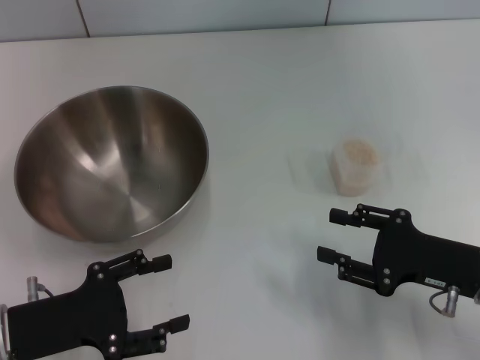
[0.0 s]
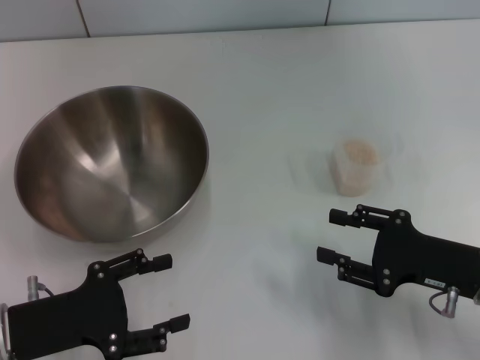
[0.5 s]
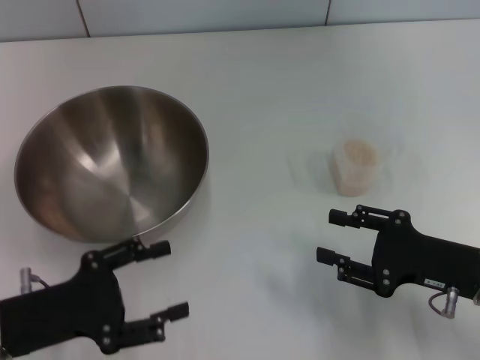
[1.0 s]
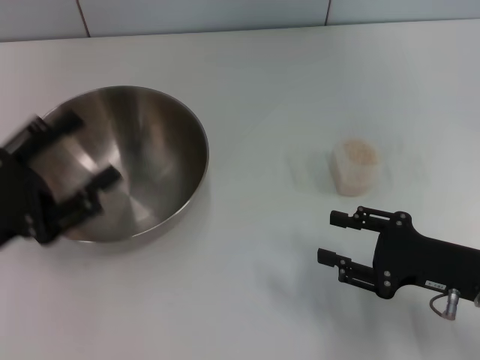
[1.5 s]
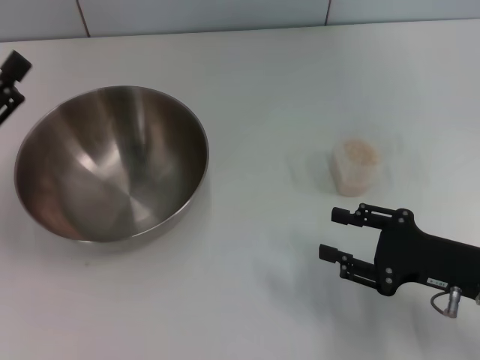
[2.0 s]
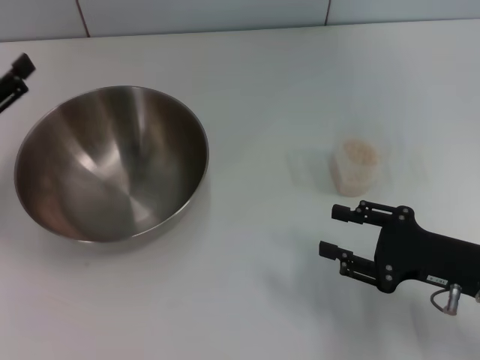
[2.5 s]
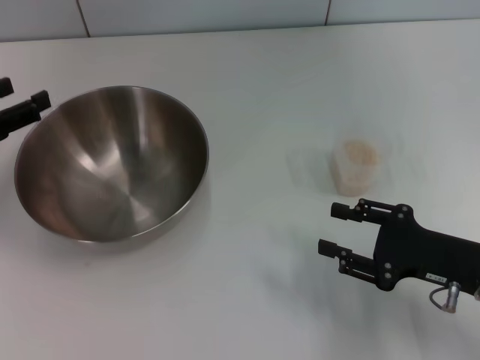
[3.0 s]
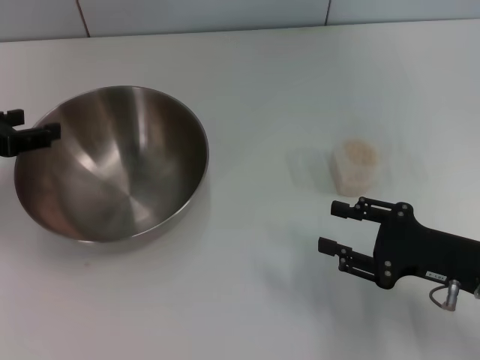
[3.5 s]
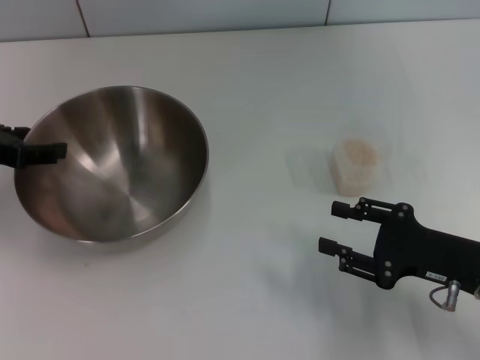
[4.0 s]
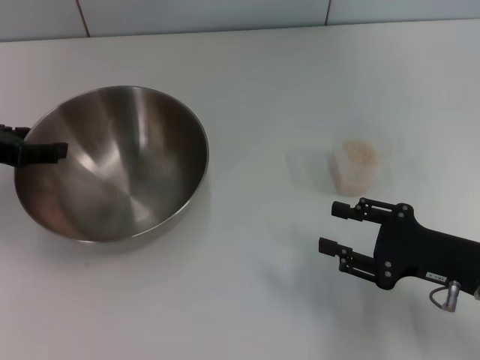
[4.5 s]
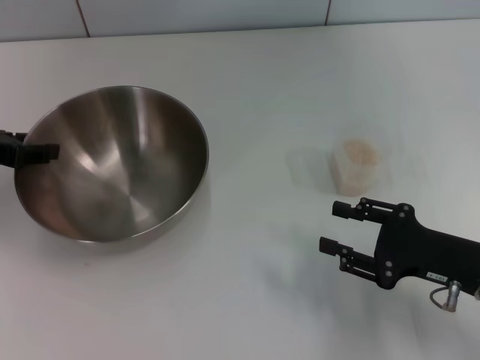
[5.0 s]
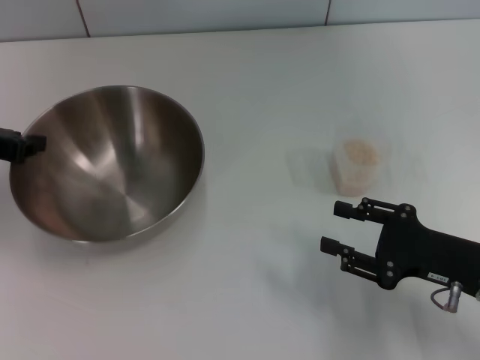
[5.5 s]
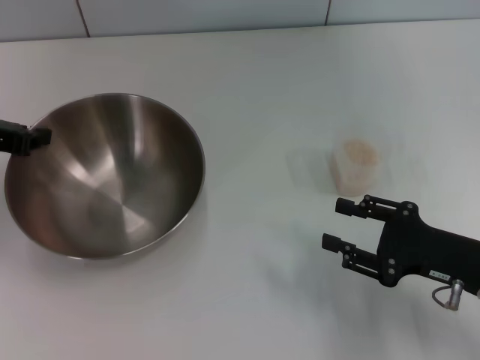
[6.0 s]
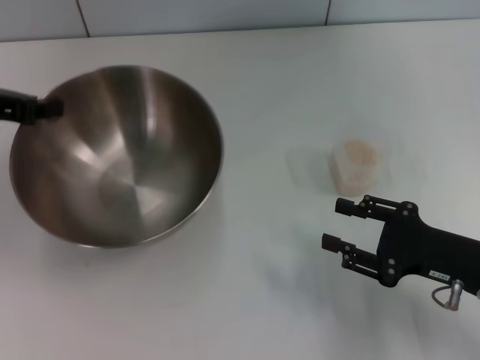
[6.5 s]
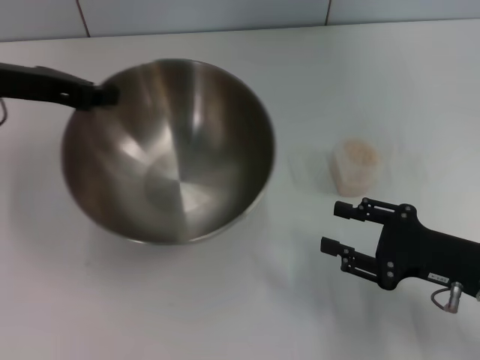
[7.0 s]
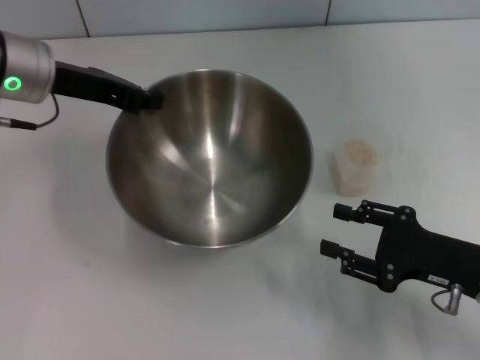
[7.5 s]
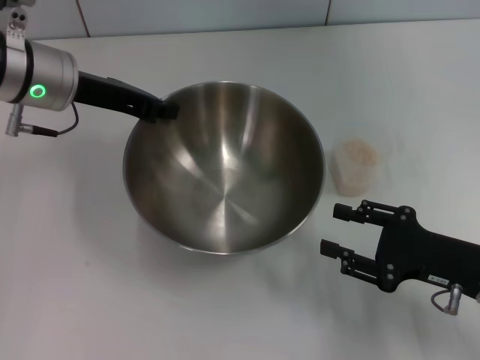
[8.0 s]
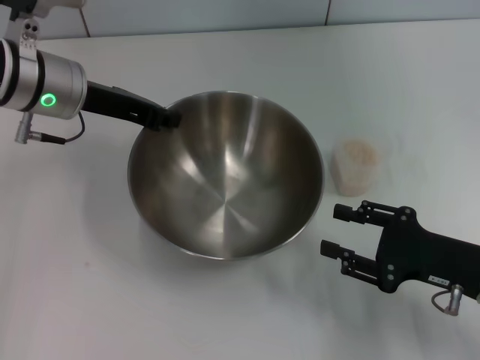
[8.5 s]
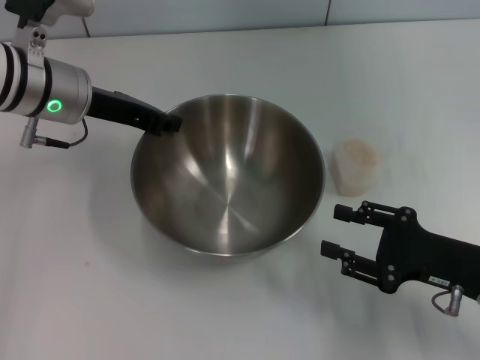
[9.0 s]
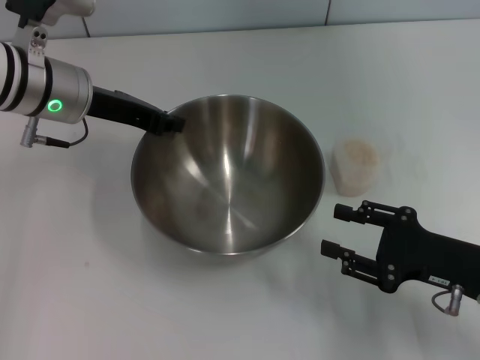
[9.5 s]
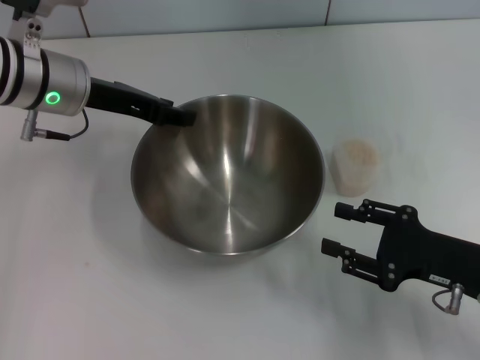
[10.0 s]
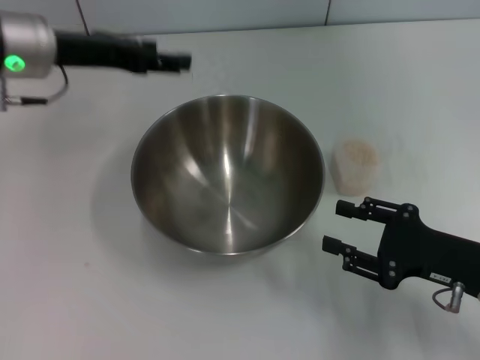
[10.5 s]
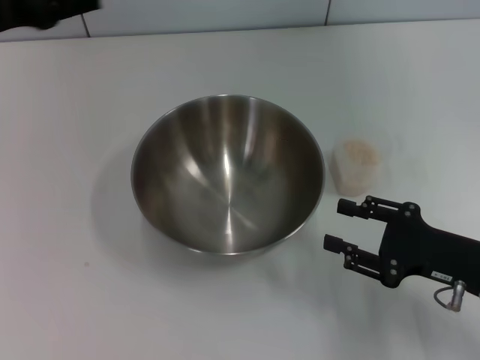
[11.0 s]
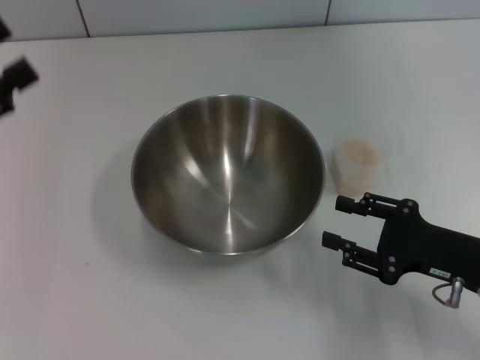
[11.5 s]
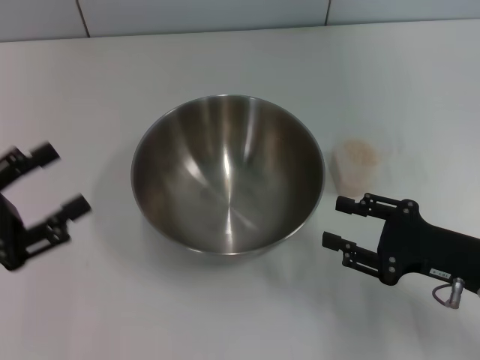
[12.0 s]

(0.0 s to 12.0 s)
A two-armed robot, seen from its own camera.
Task of the whole recording: Place the bowl in the middle of the table with one hand and pour the rice from the grain cup into it with the other hand.
Step, 0.0 s - 6.5 s: Pick up the bowl with the left gripper.
Step, 7.0 s - 10.5 s: Place the bowl in the center of view with the left gripper.
0.0 s - 2.0 s: The left gripper is displaced upward by about 5 cm.
2.0 s - 4.0 s: The left gripper moves forward, roughly 10 cm.
4.0 s - 6.0 s: The left gripper closes its fingers.
6.0 s - 8.0 s: The left gripper is displaced to the right and forward by approximately 15 cm.
8.0 s - 10.0 s: The left gripper opens up.
10.0 s - 12.0 s: The left gripper heads backward and to the left, covering roughly 25 cm, and opens up.

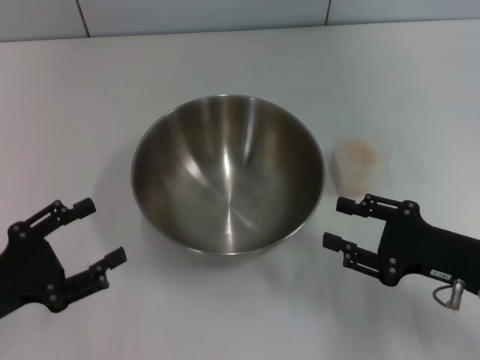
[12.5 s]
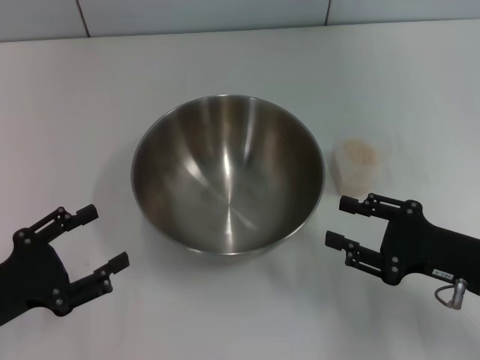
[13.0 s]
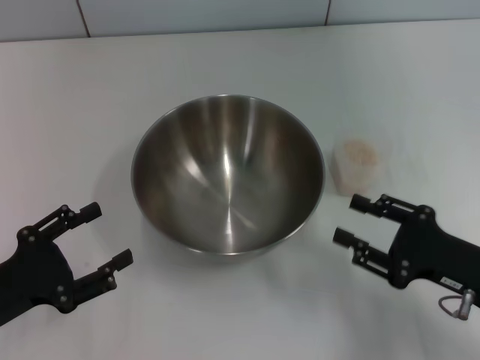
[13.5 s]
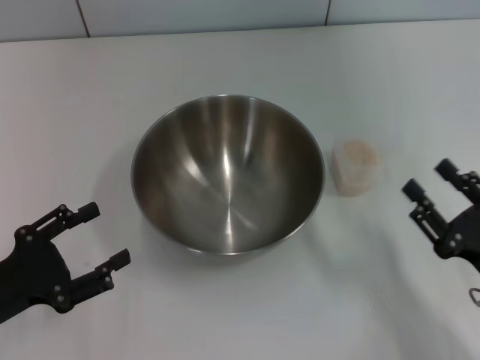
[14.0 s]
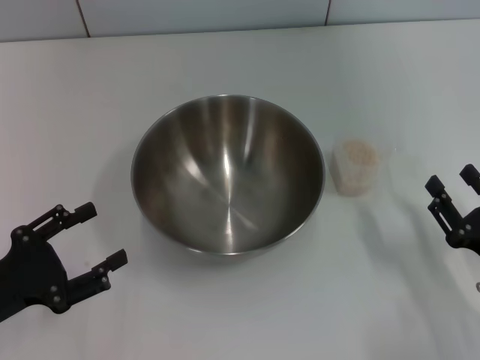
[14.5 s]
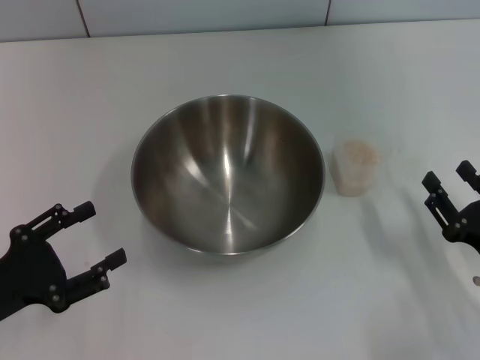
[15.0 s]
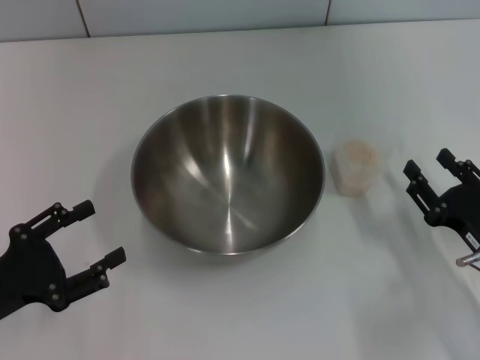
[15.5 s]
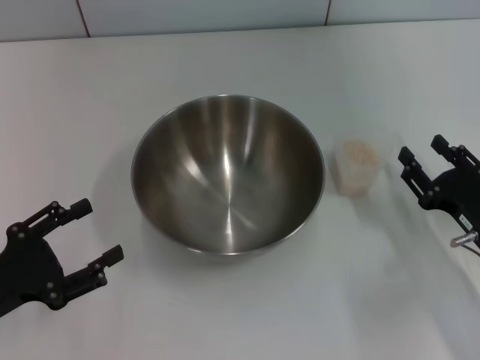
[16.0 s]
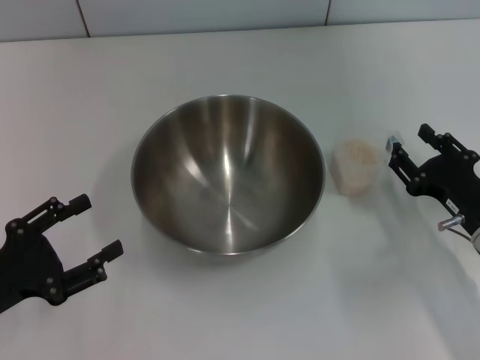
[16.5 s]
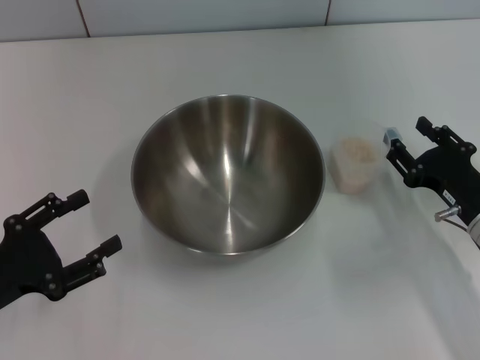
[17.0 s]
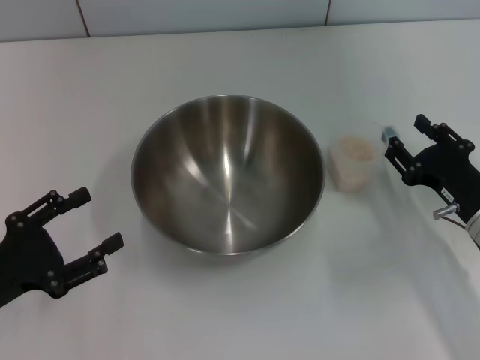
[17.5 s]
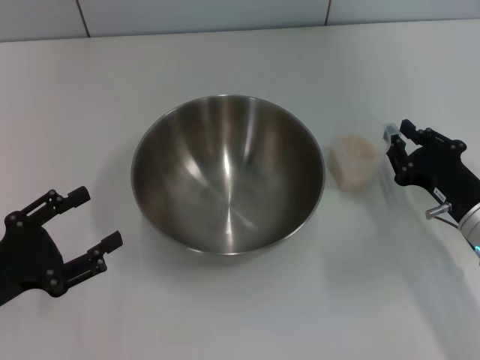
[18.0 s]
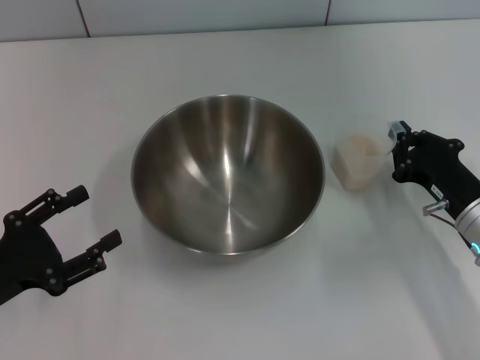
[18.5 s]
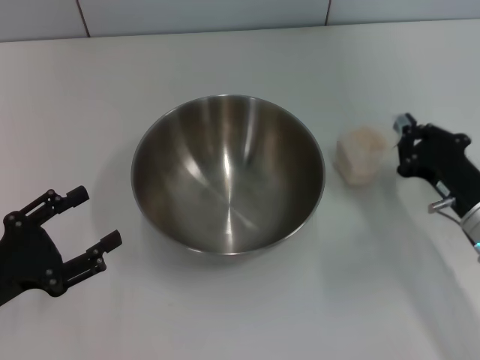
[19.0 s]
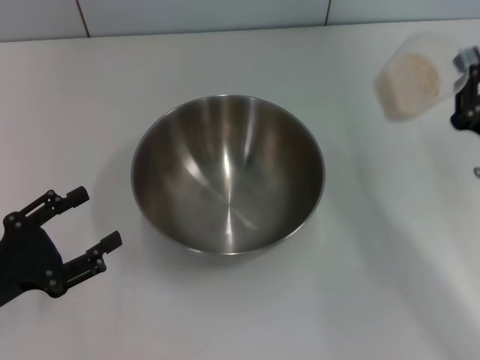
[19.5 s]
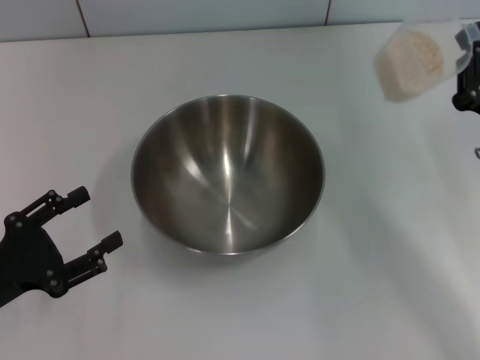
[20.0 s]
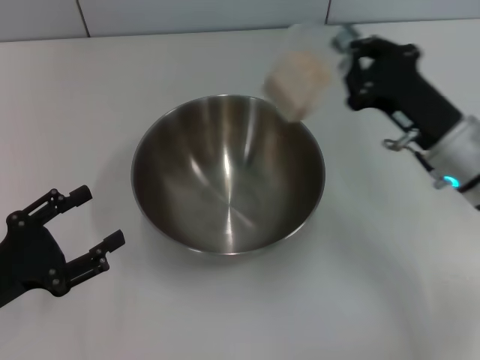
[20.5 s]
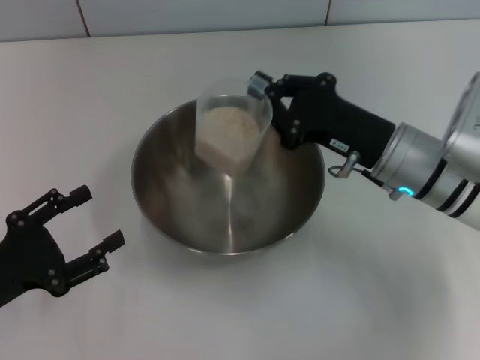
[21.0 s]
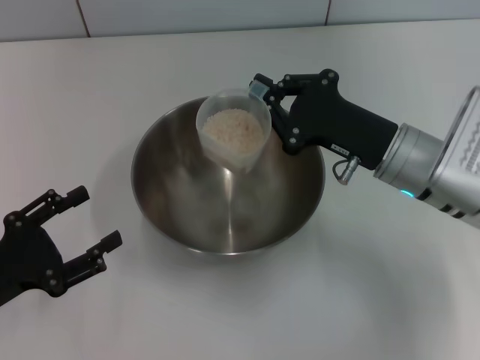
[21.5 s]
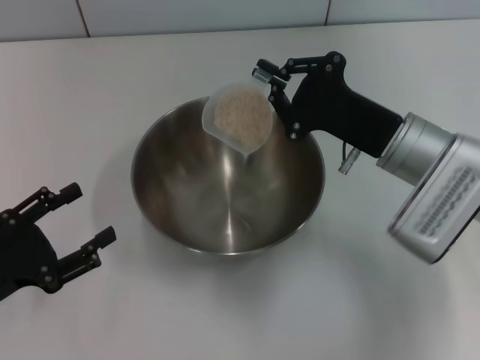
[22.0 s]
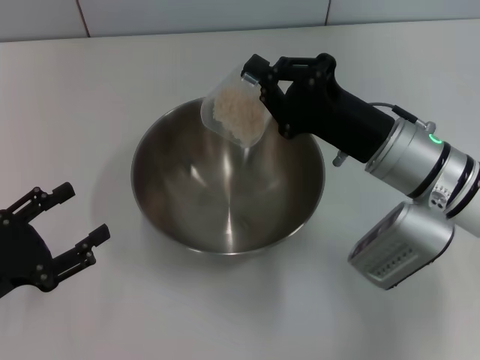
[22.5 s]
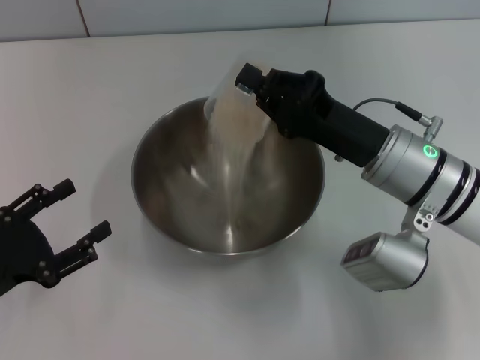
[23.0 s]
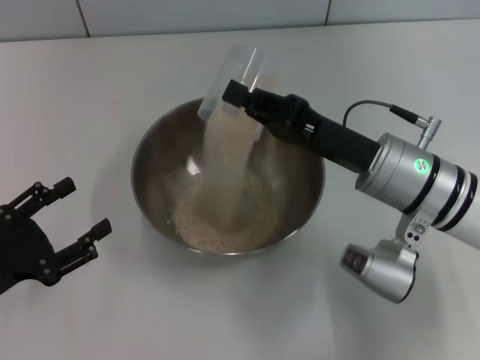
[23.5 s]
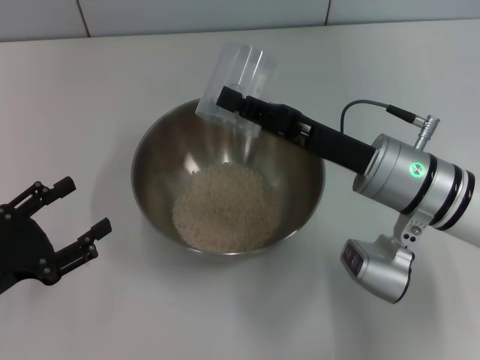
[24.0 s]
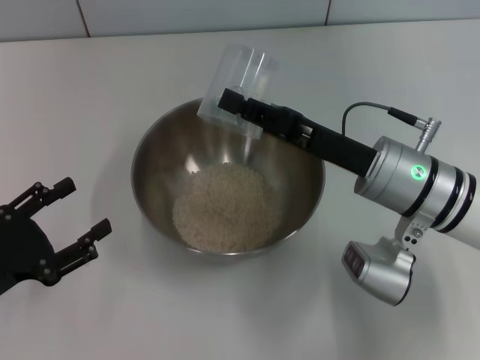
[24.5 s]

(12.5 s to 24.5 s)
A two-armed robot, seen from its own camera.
Task of the whole recording: Place the bowl in the middle of the table with one hand and pour the rice from the grain cup into it with the other hand.
Step, 12.5 s - 19.5 s: Pick up the cup with rice in it with the right gripper.
12.5 s - 14.5 s: The right gripper goes approximately 5 cm backward.
14.5 s - 16.5 s: The right gripper heads forward, covering approximately 10 cm.
16.5 s - 18.5 s: The right gripper closes.
18.5 s - 20.5 s: The right gripper goes roughly 5 cm upward.

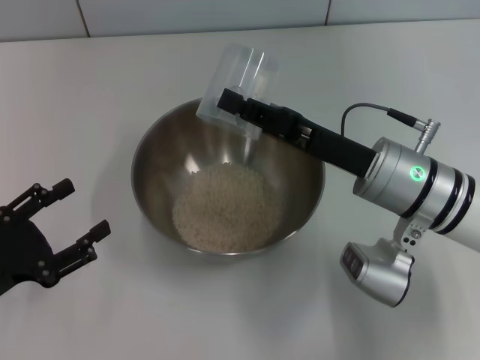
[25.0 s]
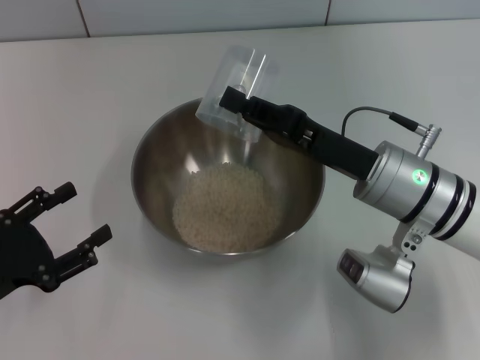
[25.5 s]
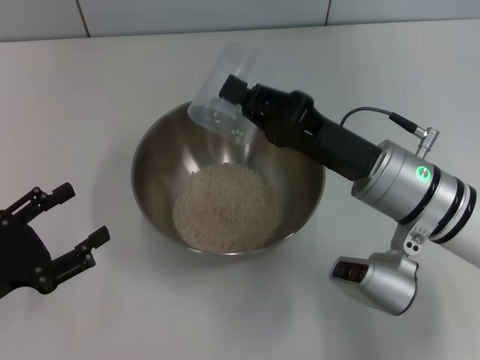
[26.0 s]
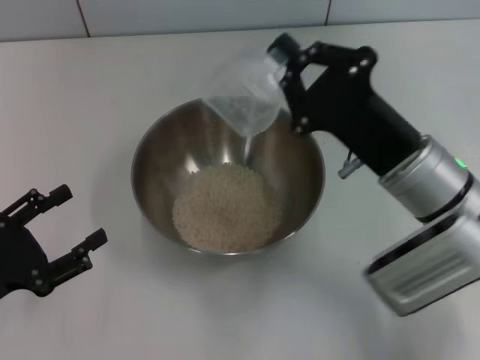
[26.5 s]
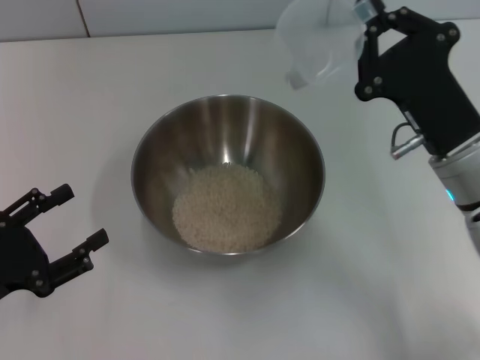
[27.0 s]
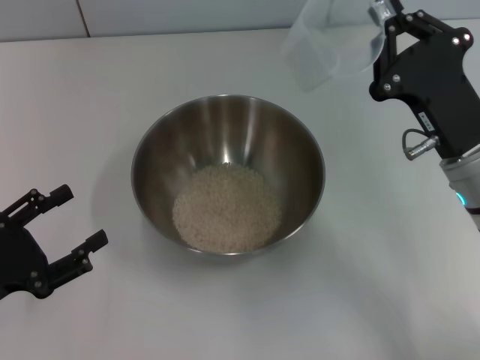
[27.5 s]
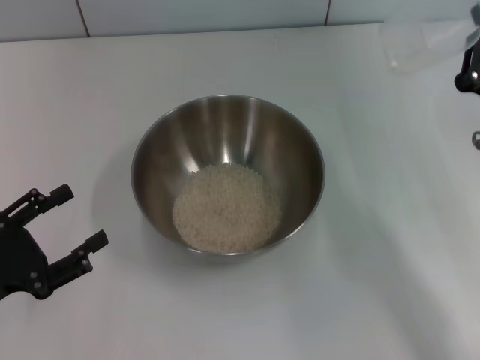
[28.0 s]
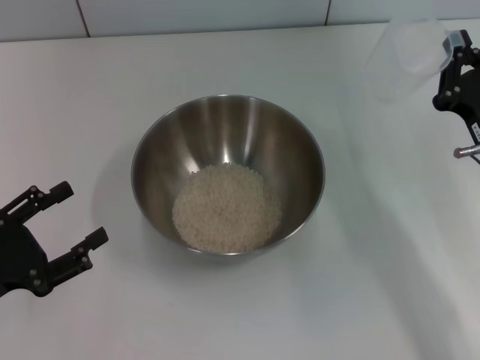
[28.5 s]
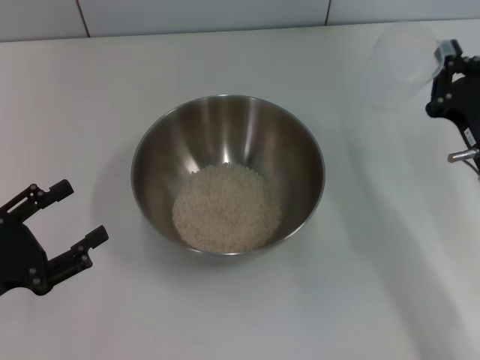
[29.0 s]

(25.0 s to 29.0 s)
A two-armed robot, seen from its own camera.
Task of the whole recording: Place the bowl in the middle of the table with one hand and pour the rice from the grain cup into it with the other hand.
Step, 25.0 s - 27.0 s: Pour the rice from the cup into the bowl with the right gripper.
25.0 s - 27.0 s: The right gripper shifts by about 5 cm.
27.0 s - 29.0 s: The right gripper goes about 5 cm to the right.
